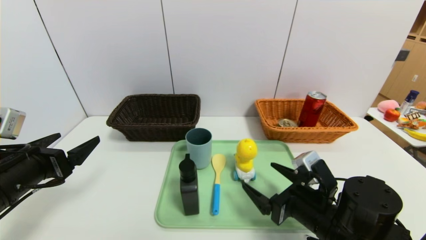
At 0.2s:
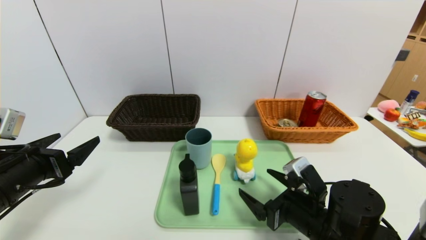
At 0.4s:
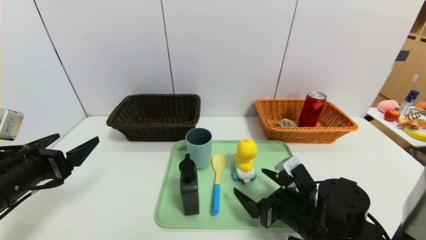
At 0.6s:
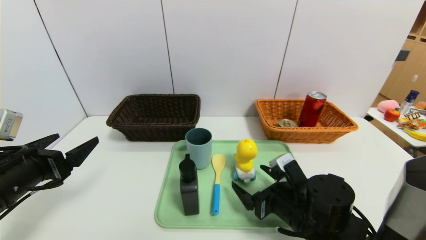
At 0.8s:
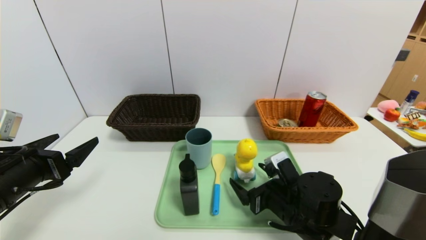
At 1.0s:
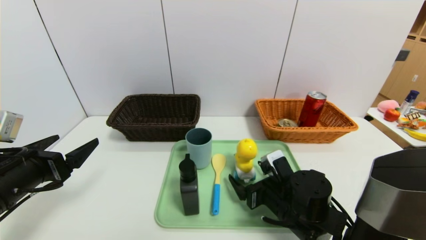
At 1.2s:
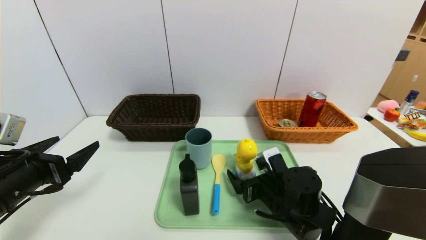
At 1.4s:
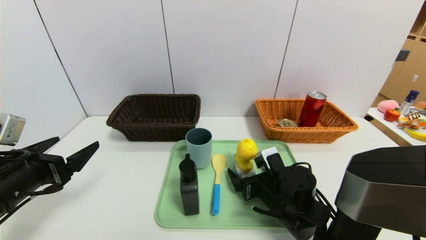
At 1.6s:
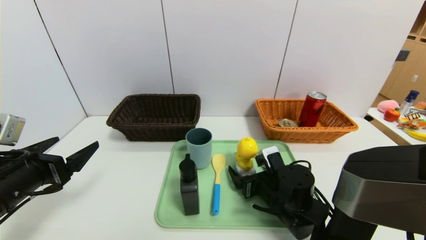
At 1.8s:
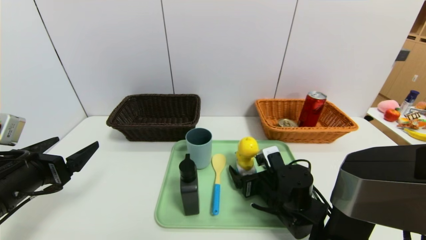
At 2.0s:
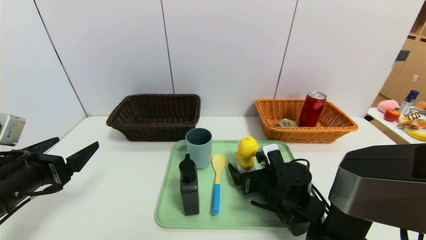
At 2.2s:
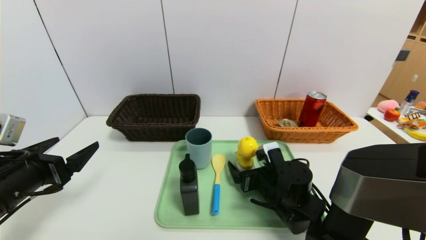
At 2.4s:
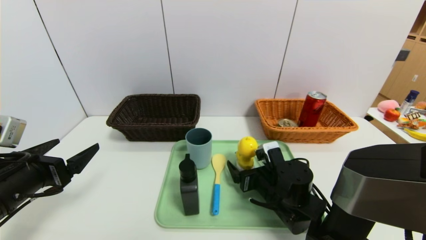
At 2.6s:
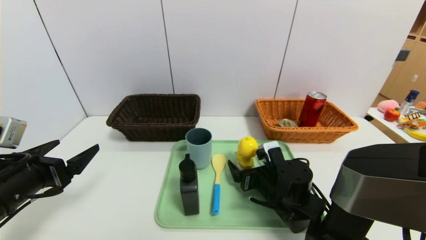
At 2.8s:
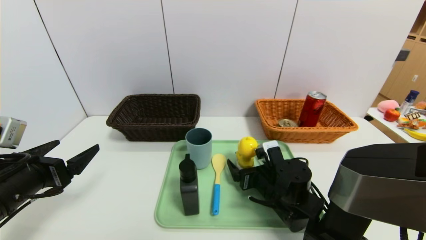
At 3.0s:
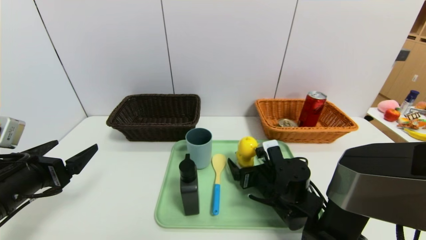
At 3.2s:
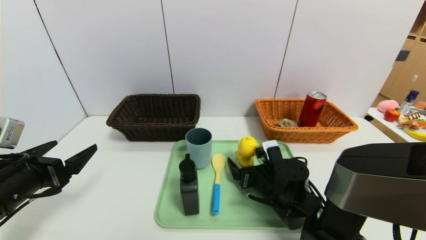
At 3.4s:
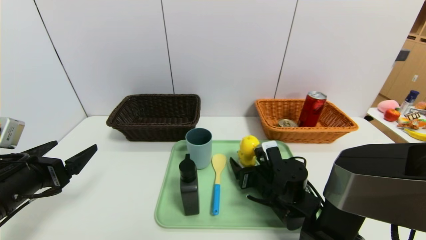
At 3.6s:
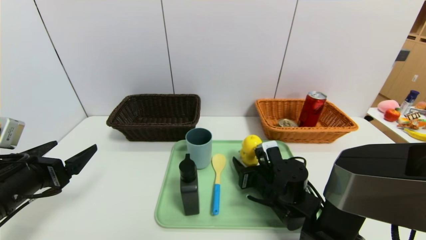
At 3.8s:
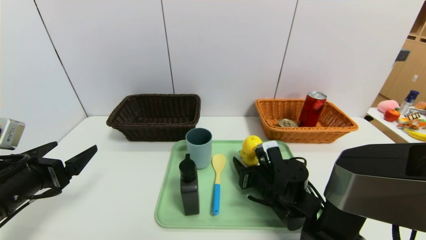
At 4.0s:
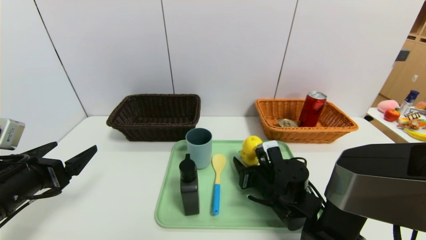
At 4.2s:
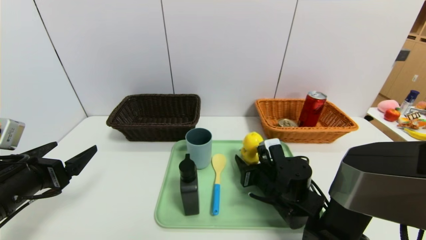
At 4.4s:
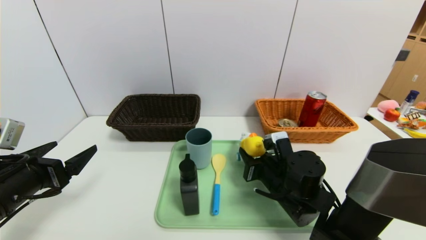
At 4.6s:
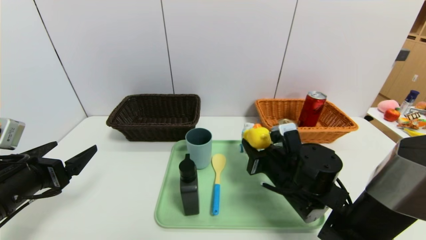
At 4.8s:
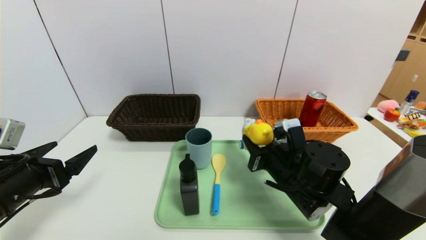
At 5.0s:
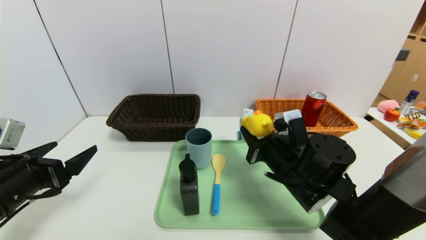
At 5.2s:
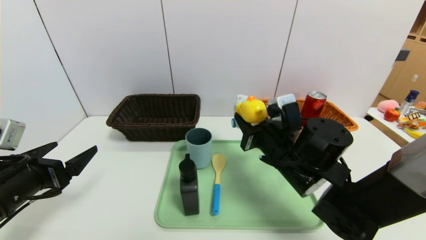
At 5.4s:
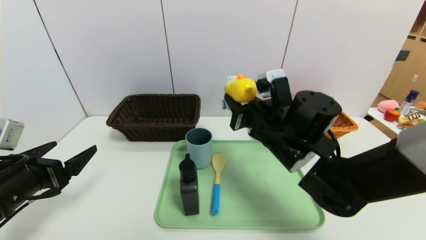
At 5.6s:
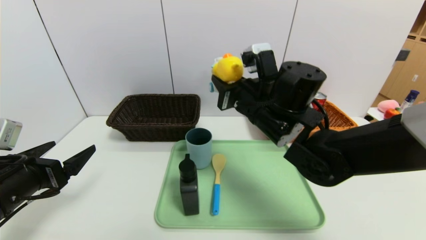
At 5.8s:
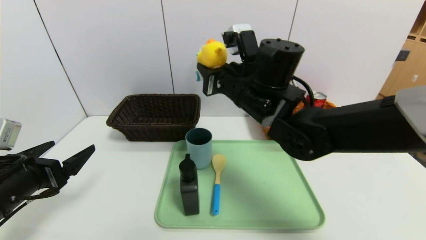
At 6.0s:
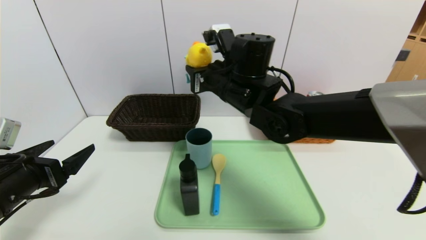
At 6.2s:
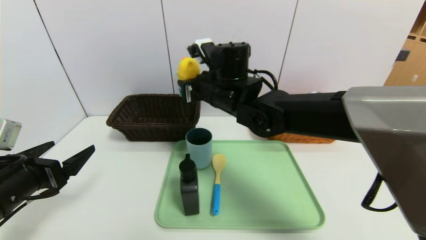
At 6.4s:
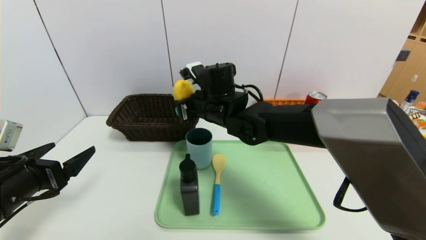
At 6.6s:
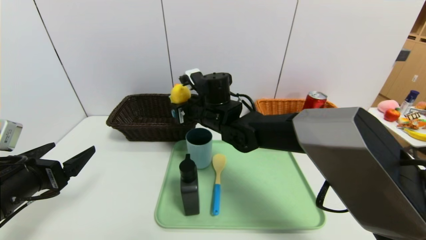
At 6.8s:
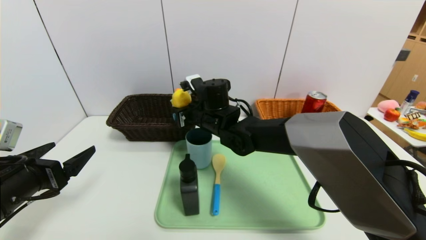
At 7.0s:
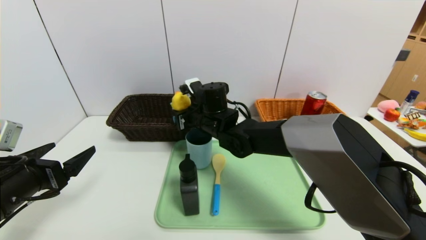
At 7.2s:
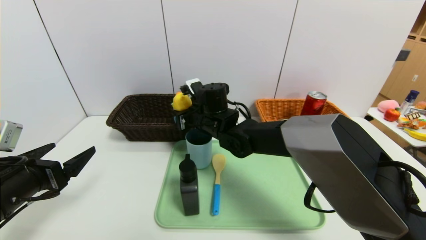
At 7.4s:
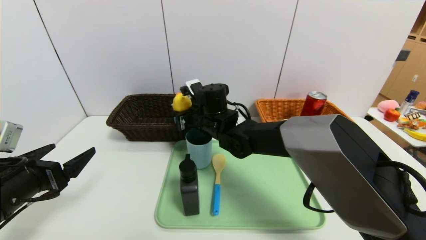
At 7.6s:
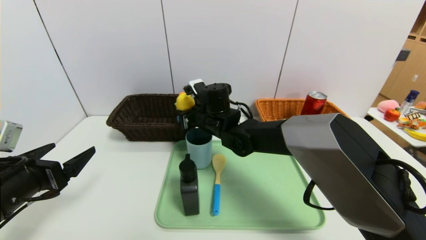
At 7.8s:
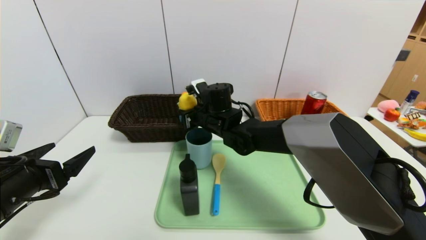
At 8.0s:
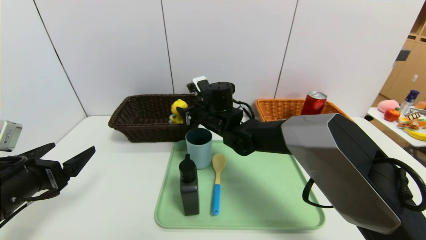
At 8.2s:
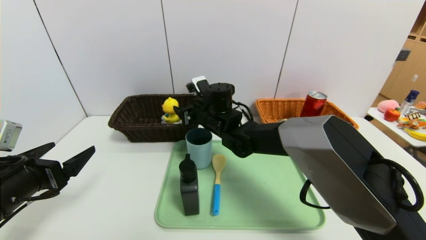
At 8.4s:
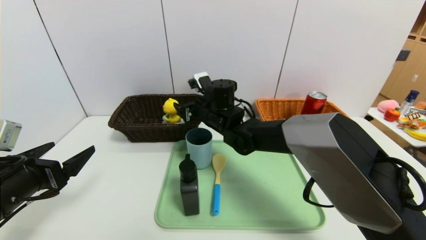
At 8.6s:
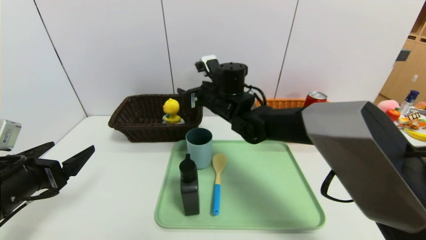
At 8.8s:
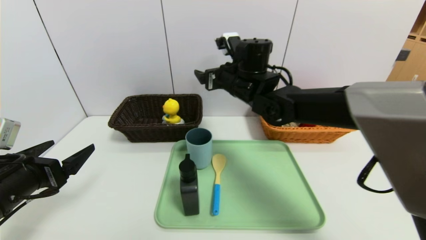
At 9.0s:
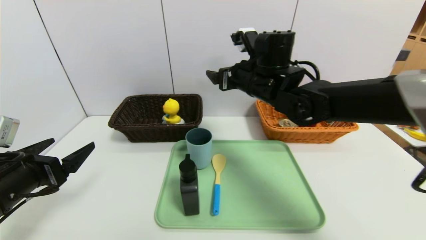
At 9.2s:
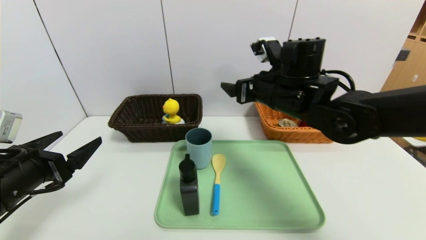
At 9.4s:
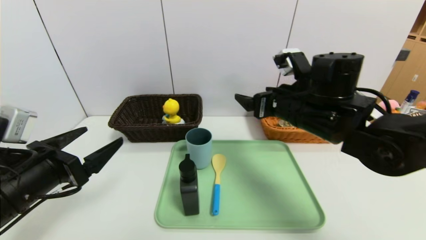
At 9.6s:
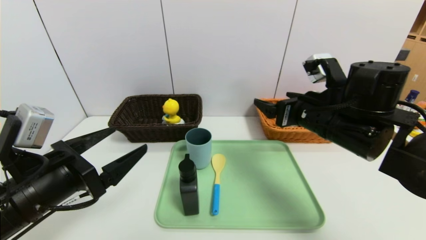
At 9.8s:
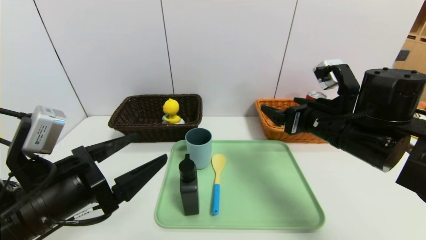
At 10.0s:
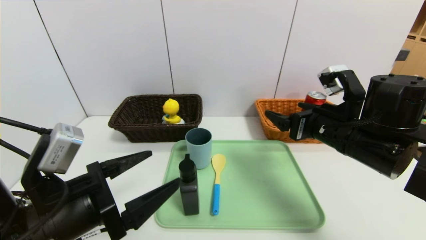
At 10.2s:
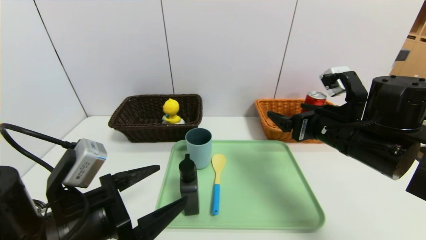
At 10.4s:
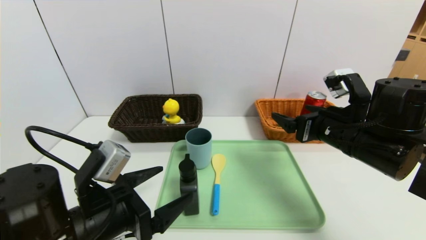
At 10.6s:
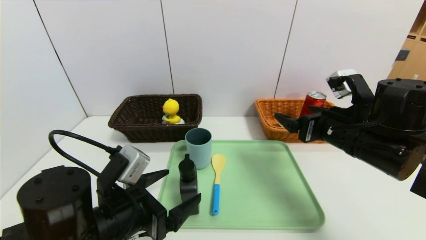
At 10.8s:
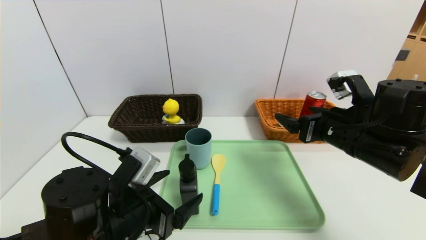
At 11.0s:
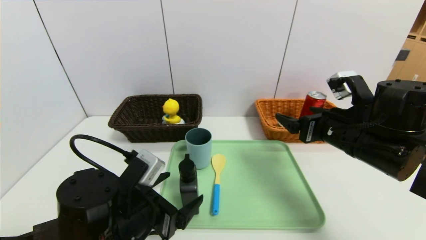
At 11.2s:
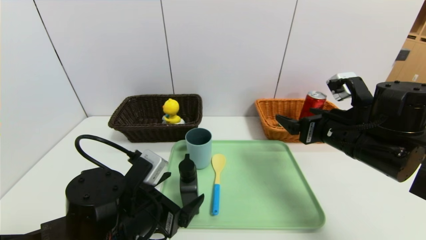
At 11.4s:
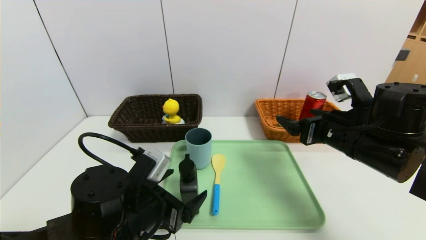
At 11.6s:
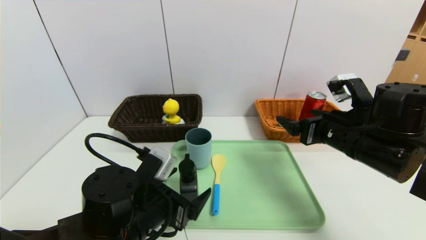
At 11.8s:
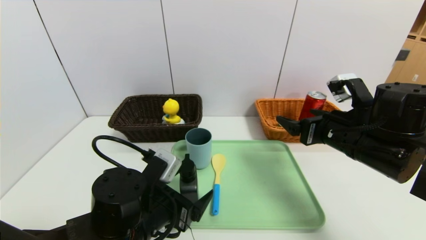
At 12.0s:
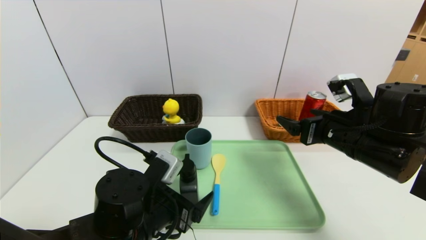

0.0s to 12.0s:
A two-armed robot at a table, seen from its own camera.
Task of the whole recording: place the food in the right basket with the right gripper, and place the non food items in the left basket with the left gripper.
0.0s to 1.6s: The right gripper is displaced forward by about 5 cm.
1.6s to 3.0s: The grippers move only a little.
3.0s to 4.4s: The right gripper closes up.
4.4s to 6.0s: The right gripper moves upward, to the left and forward, approximately 25 cm.
6.0s to 7.6s: The right gripper is displaced downward and forward by some 10 cm.
7.6s to 9.0s: The right gripper moves upward and to the right, some 15 cm, and opens up.
9.0s to 10.4s: The left gripper heads to the right, covering about 15 cm, while the right gripper is displaced to the right, backward and downward by some 20 cm.
10.4s to 12.0s: The left gripper is displaced to the right by about 5 cm.

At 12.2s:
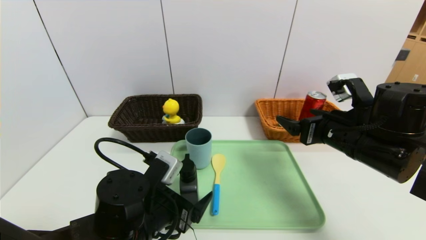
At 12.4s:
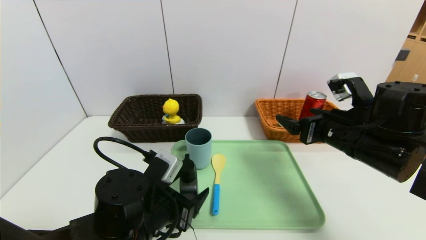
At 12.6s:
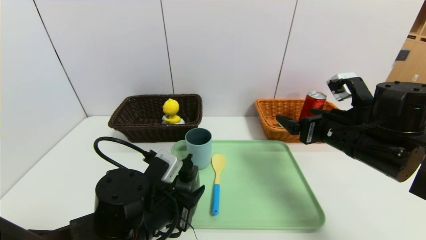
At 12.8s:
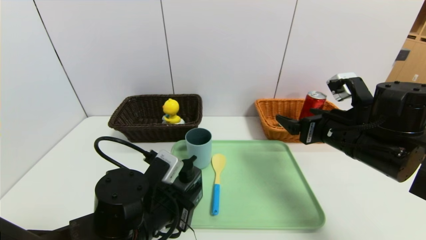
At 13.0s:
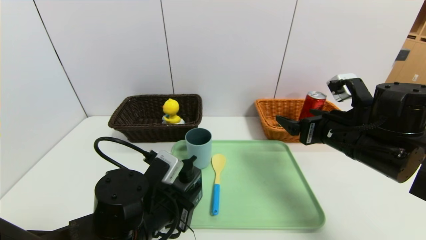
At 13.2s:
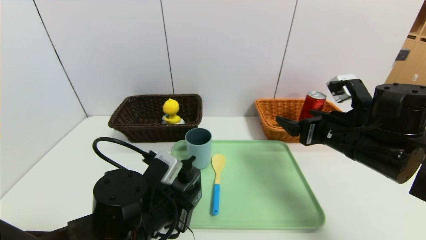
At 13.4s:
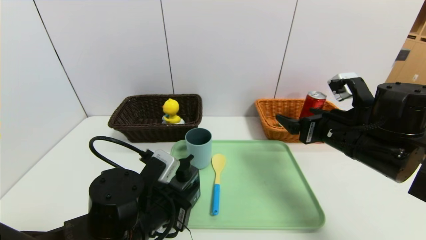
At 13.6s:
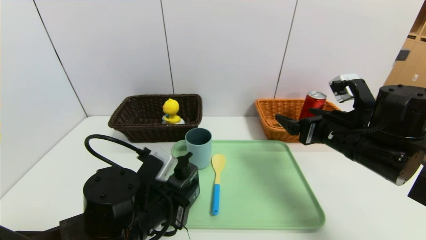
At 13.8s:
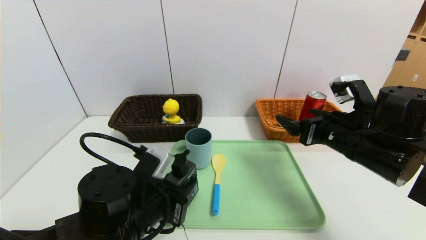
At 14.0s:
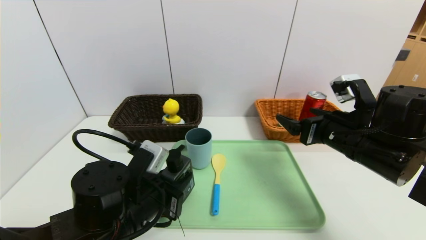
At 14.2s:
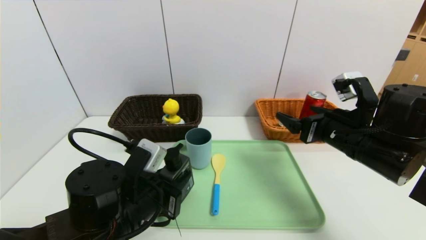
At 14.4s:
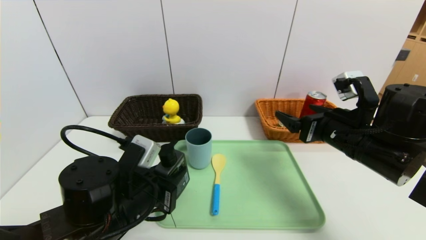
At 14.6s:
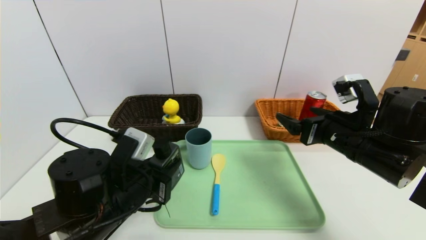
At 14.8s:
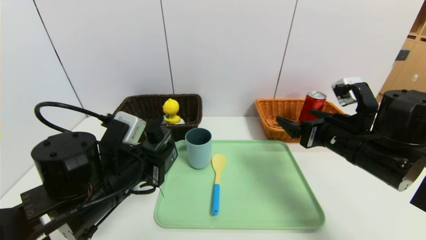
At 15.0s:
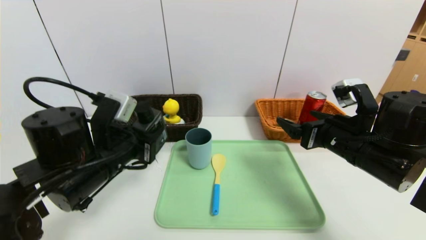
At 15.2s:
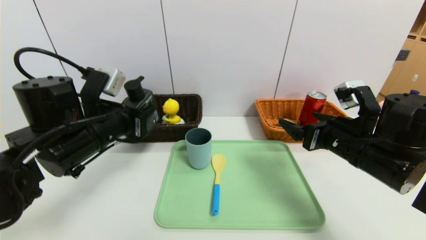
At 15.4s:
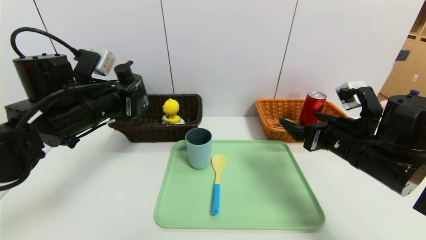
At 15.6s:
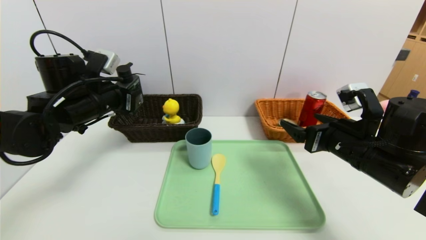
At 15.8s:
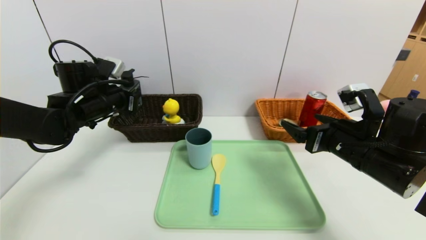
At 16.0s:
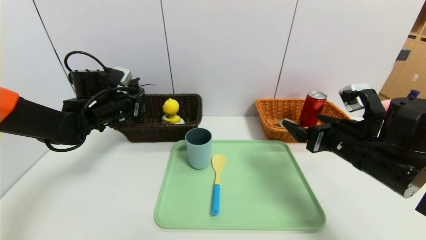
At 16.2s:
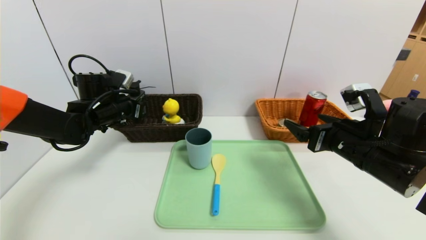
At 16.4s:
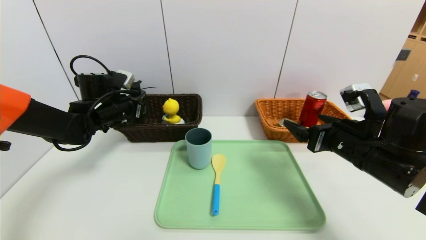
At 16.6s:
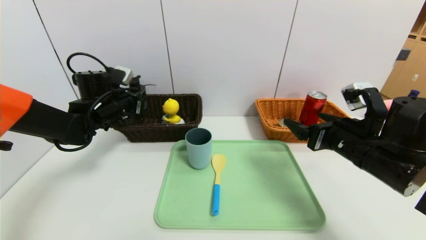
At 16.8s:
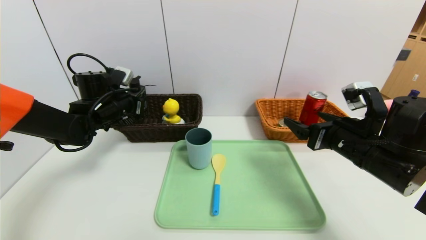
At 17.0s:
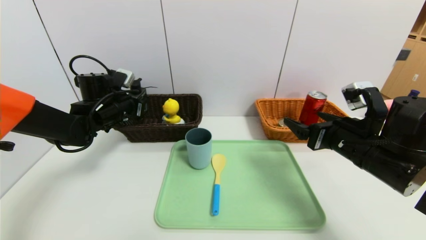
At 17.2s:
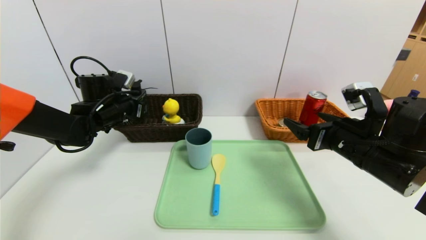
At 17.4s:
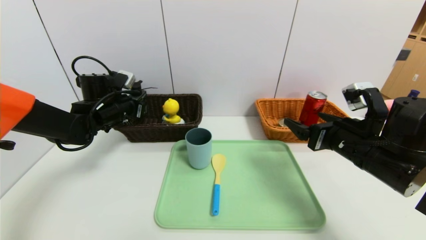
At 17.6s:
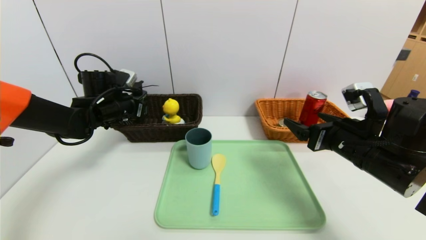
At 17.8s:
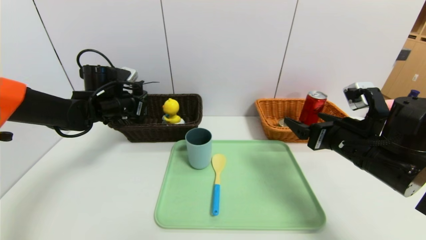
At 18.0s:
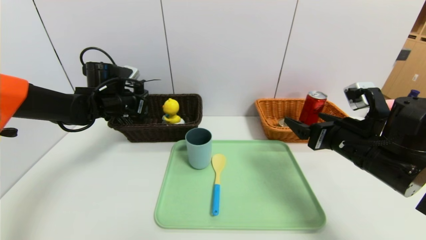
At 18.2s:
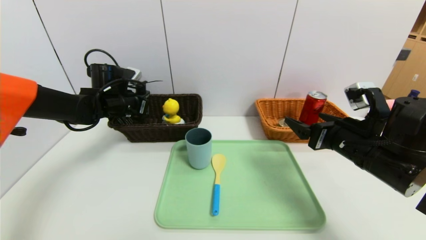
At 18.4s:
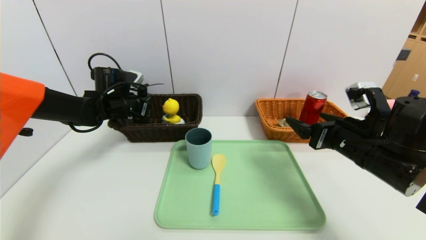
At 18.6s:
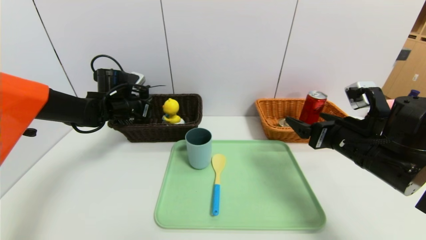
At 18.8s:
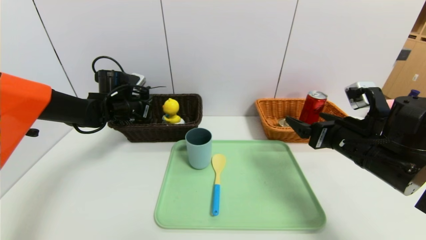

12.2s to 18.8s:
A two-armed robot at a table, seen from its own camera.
Task of the whole recording: place the food in the right basket with the right gripper, and place the non food items in the left basket with the left gripper.
12.2s to 13.8s: The left gripper closes its fingers.
13.8s to 15.4s: The left gripper is displaced upward, forward and to the left by approximately 20 cm.
15.4s to 17.2s: The left gripper moves forward and downward, roughly 15 cm.
17.2s to 18.8s: The grippers move only a little.
